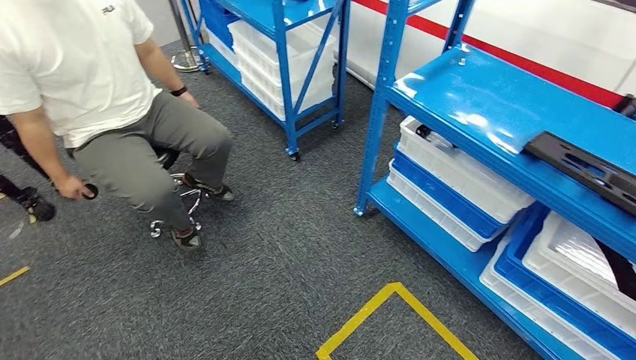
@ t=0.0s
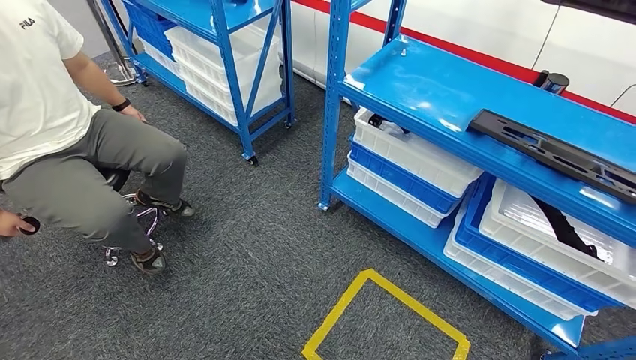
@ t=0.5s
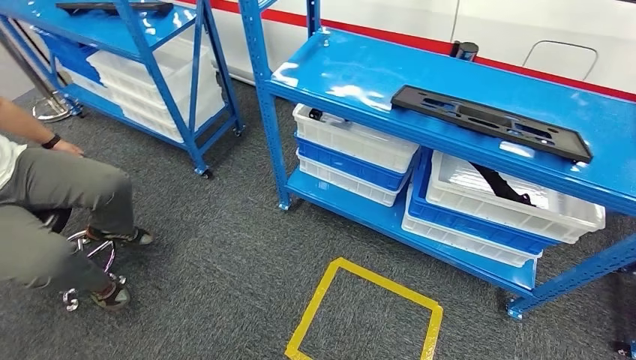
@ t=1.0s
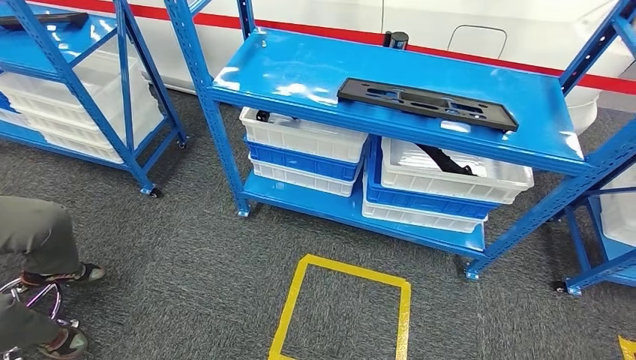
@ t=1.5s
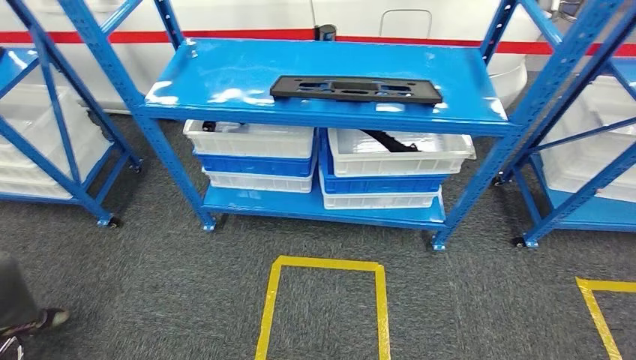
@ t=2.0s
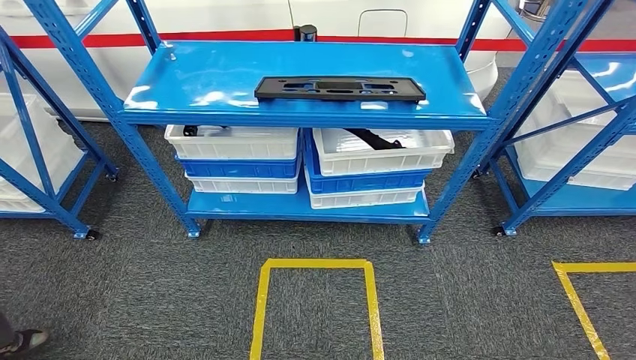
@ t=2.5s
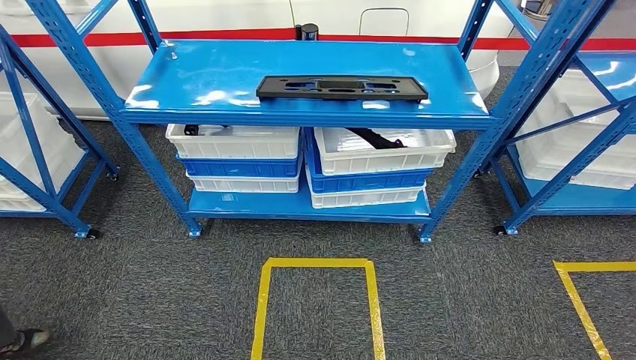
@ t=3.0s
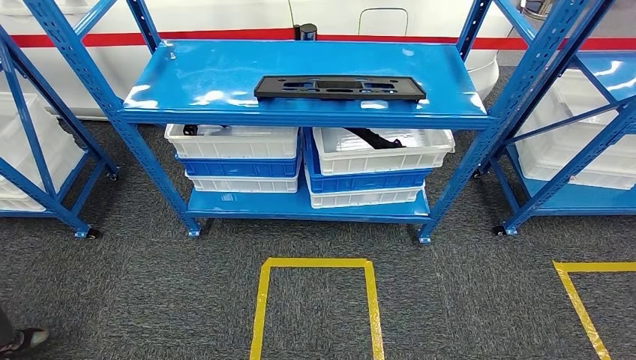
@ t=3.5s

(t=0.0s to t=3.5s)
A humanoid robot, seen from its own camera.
Step, t=0.0s - t=3.5s: Move to the initial position of the shelf.

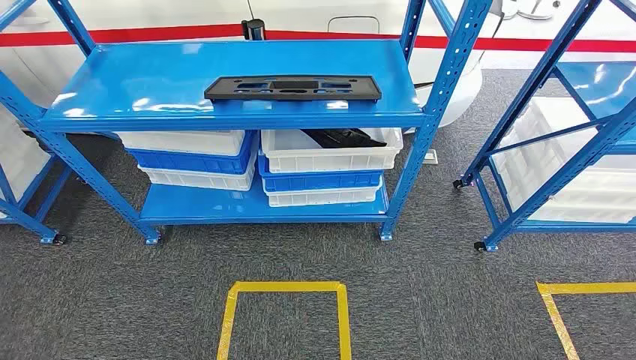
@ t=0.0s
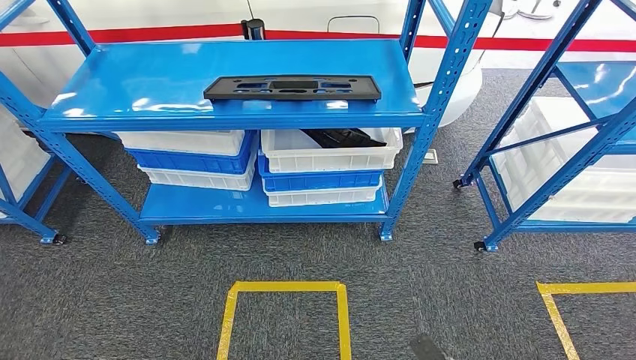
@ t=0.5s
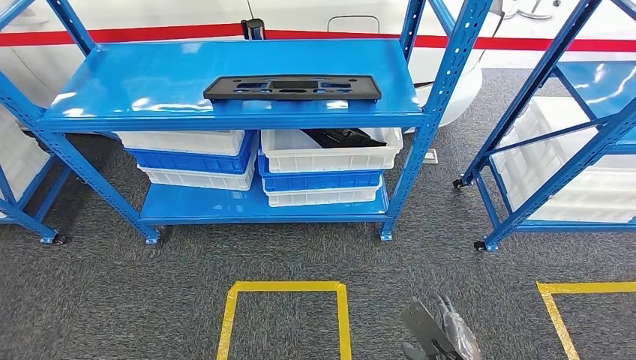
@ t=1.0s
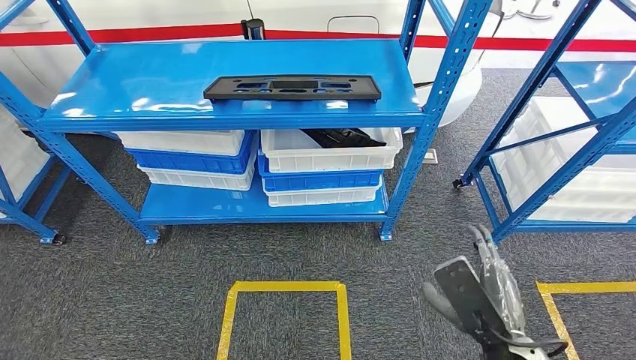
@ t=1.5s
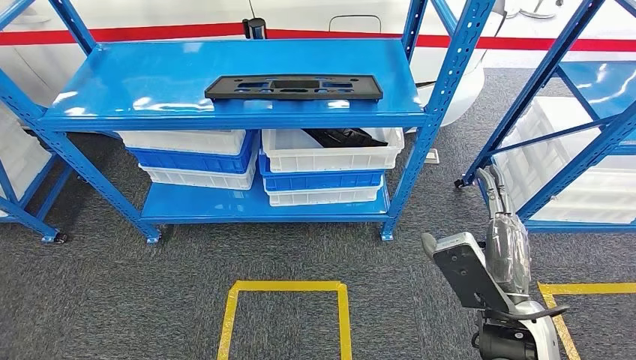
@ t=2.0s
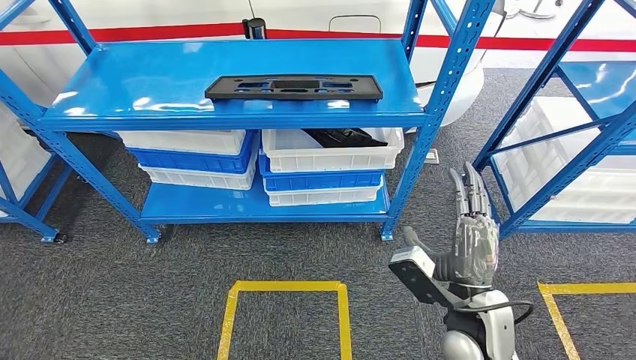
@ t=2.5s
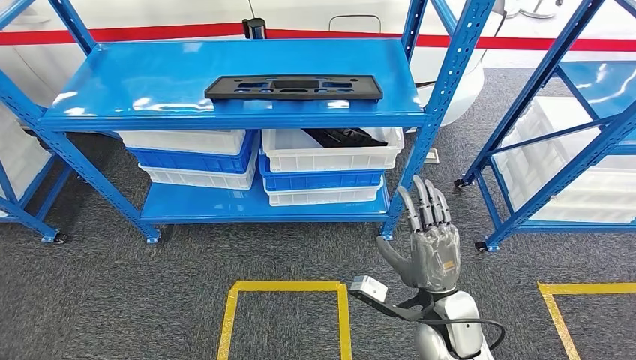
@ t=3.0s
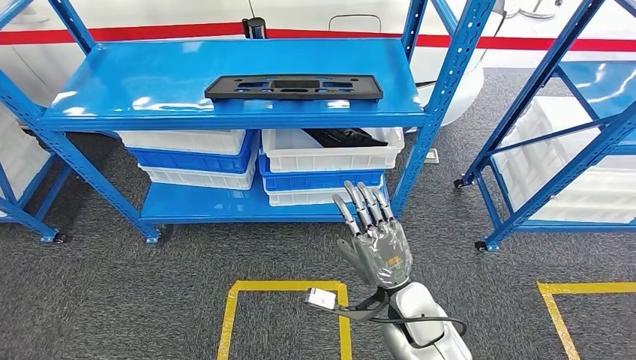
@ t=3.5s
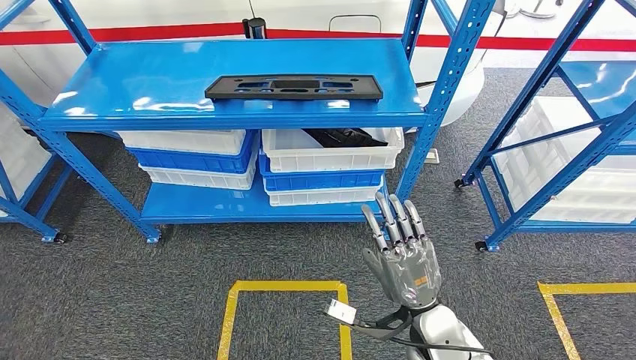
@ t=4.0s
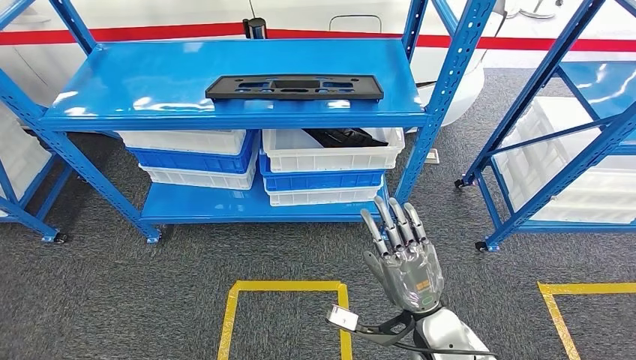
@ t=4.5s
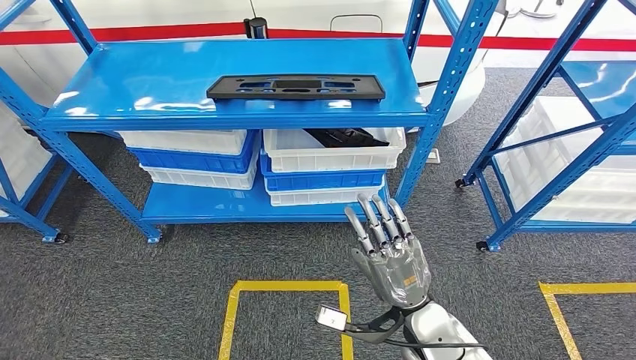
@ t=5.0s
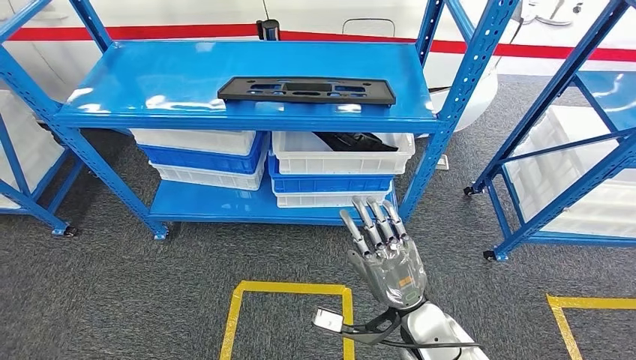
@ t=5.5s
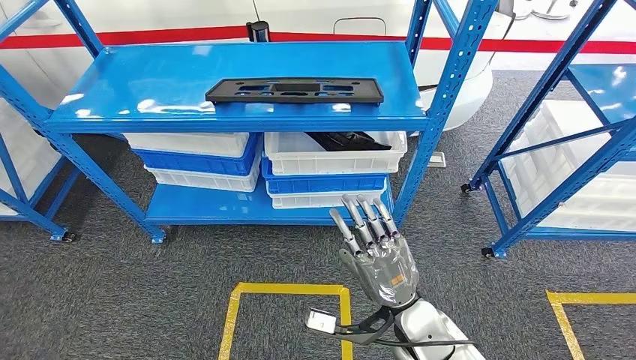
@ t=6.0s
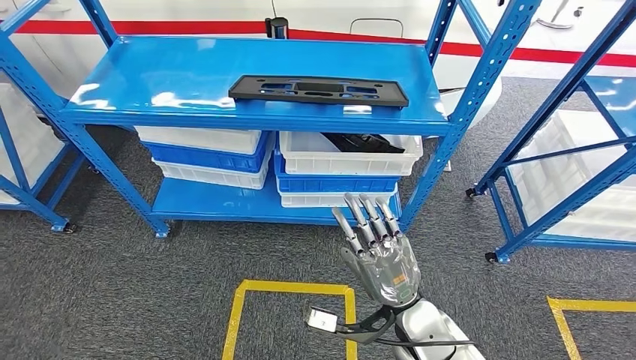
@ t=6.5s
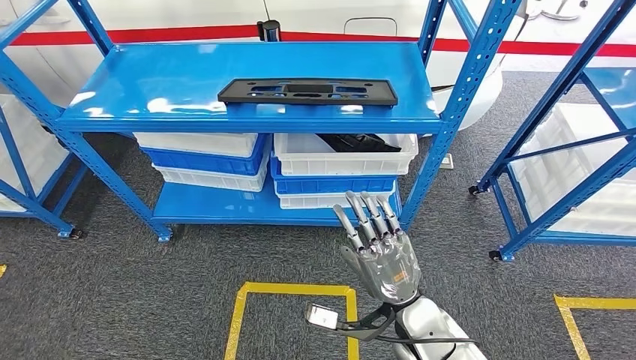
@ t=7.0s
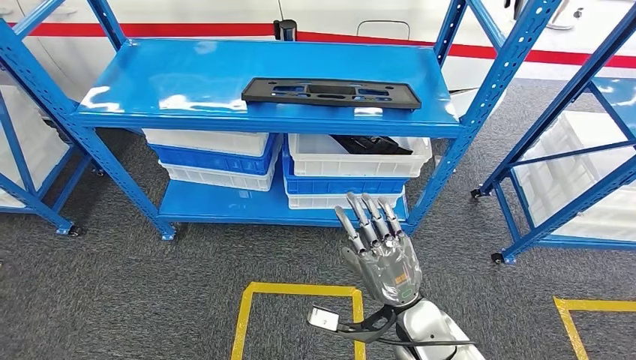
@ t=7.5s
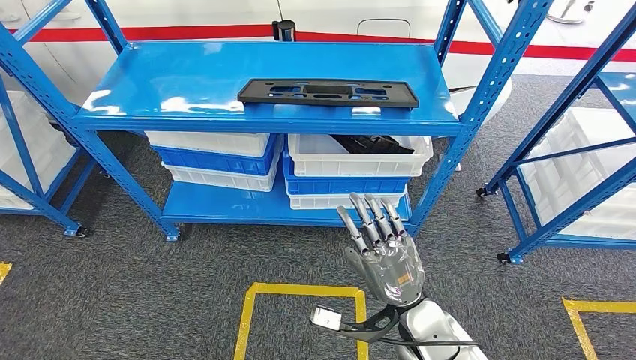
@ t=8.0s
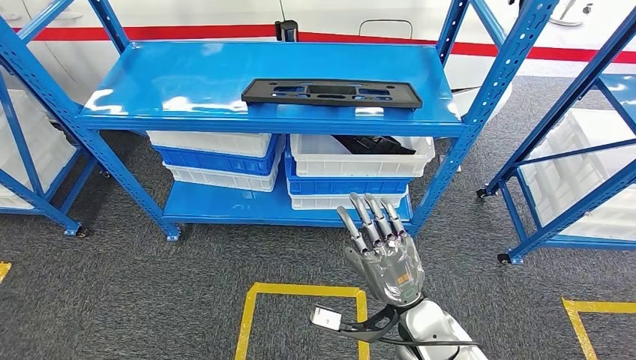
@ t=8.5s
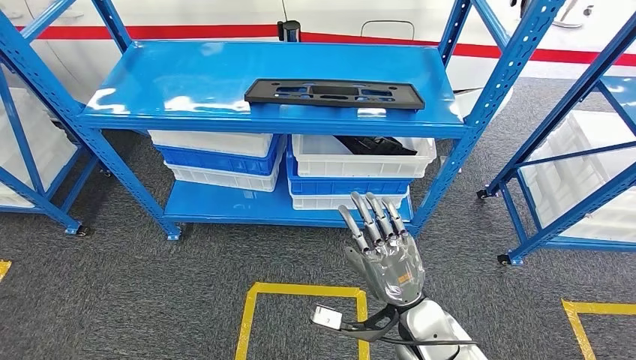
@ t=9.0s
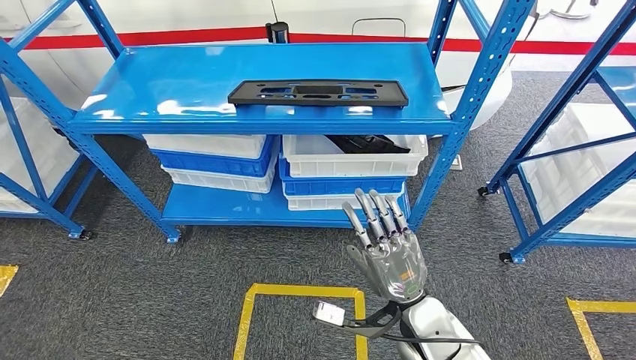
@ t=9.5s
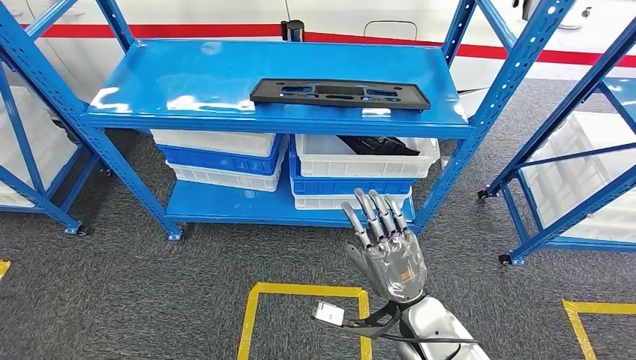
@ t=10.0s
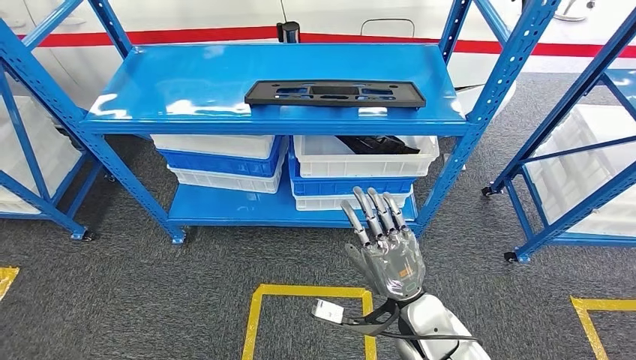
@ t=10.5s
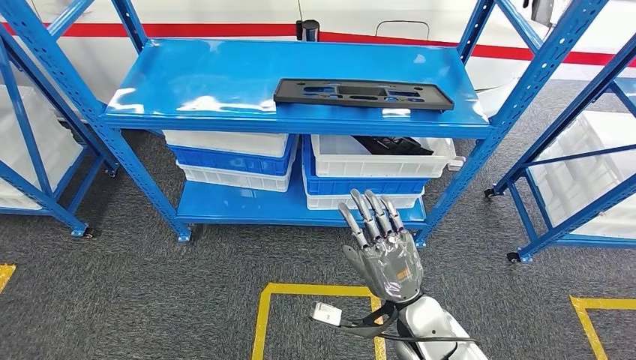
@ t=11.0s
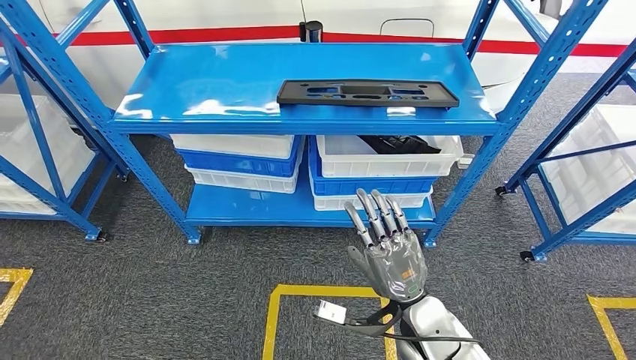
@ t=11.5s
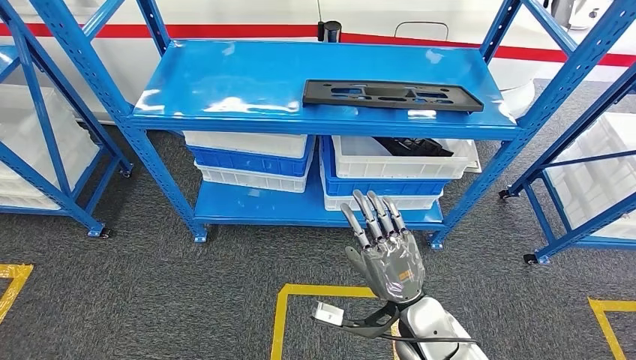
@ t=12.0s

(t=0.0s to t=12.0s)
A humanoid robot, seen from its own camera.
t=2.0s - t=4.0s: The right hand moves downward and to the left, about 10 cm.

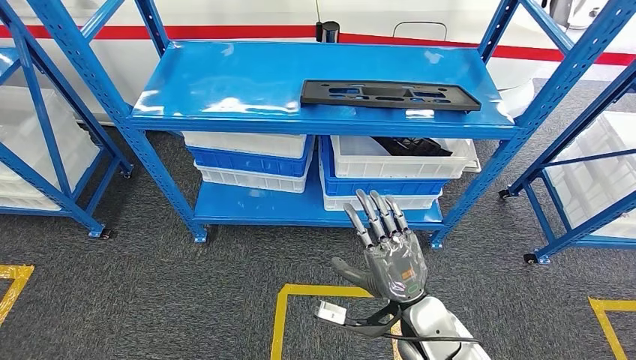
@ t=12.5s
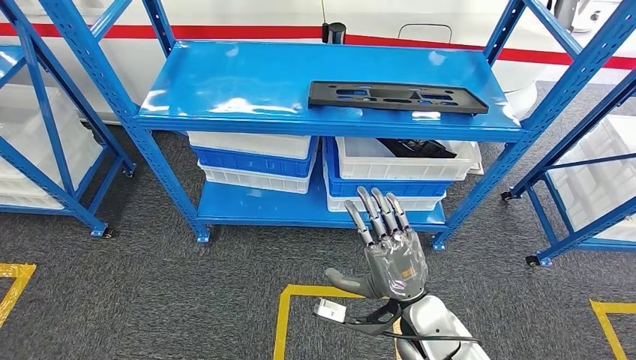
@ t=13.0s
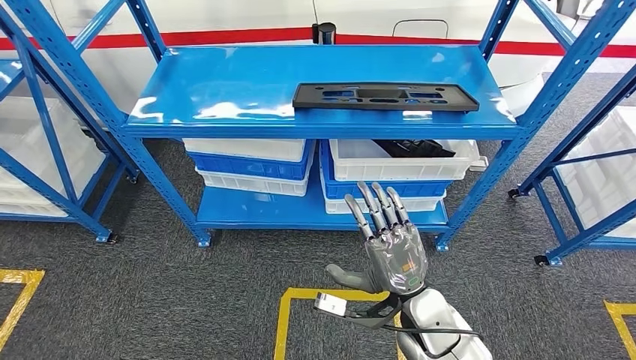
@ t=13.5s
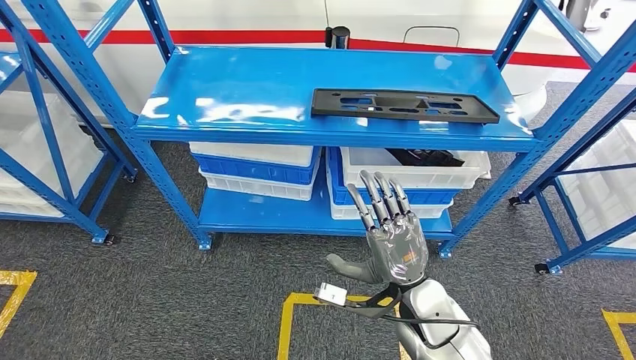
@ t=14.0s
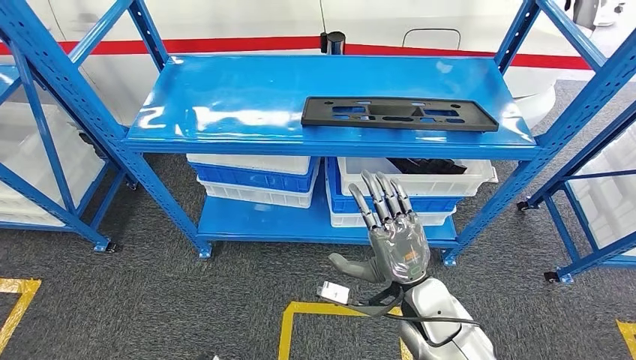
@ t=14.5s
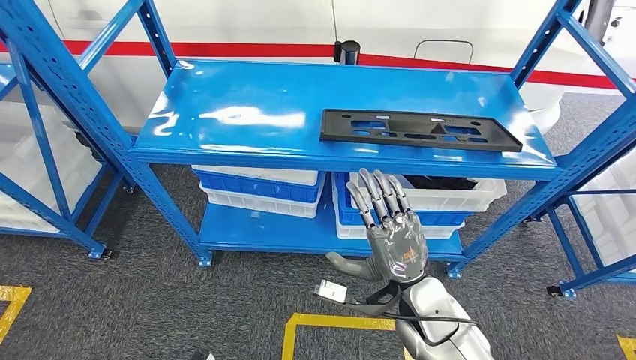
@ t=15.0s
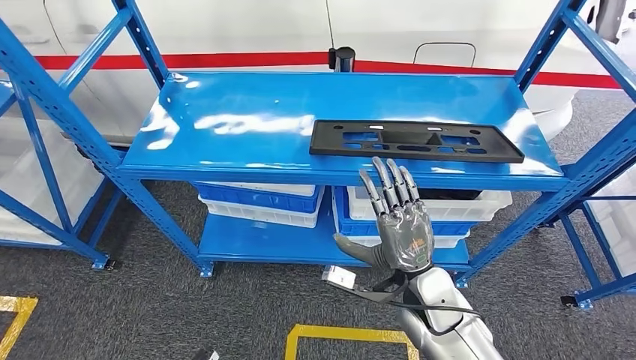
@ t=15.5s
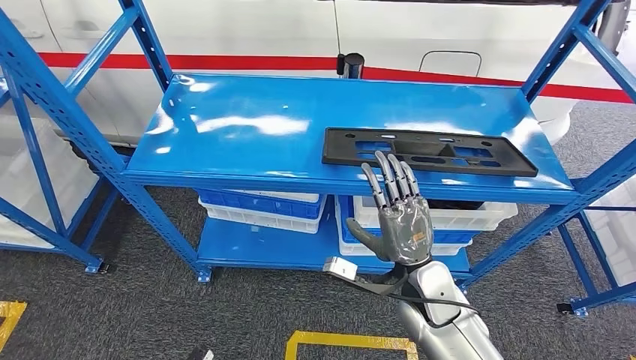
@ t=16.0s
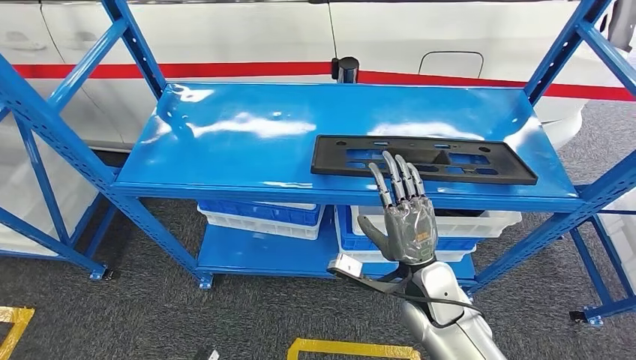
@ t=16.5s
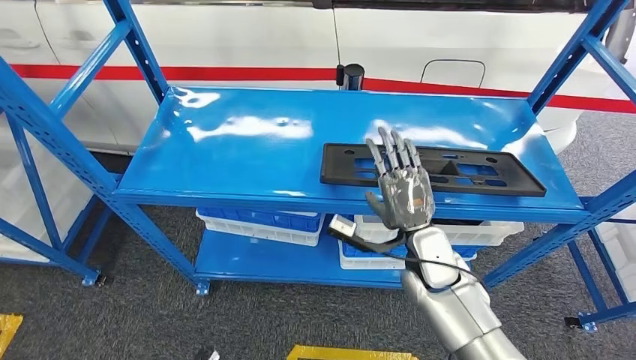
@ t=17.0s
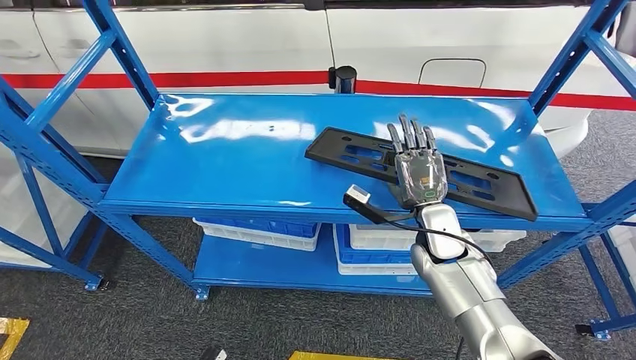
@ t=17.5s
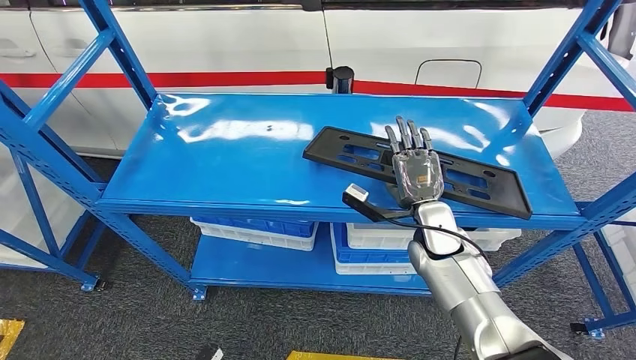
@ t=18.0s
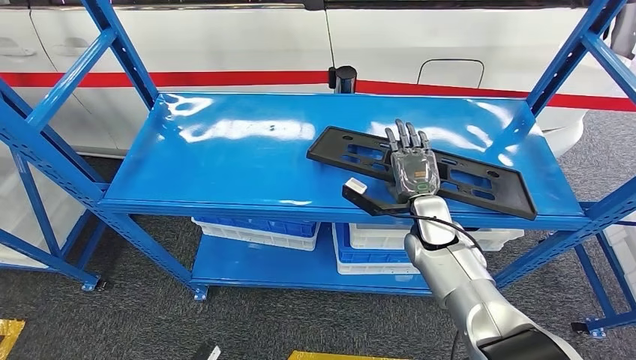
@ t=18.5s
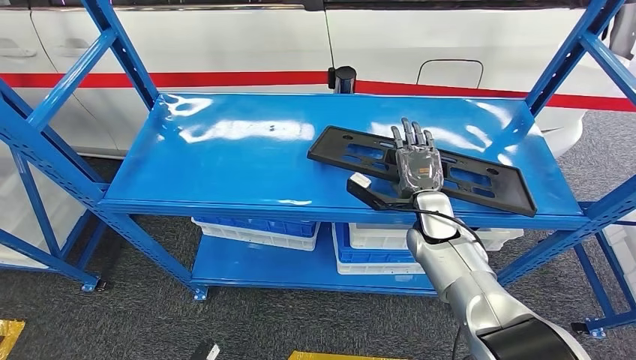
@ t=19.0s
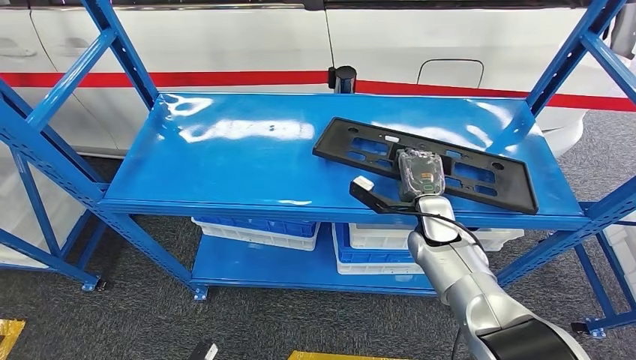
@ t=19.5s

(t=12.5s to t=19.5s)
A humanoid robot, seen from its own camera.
t=17.5s - t=19.5s: The hands move only a little.
